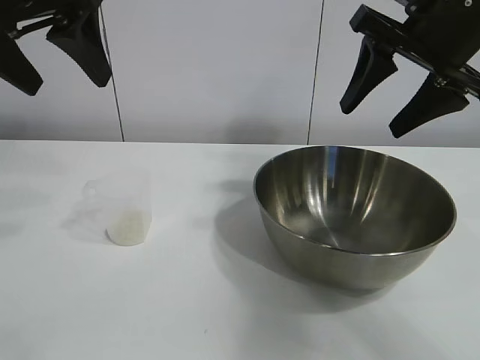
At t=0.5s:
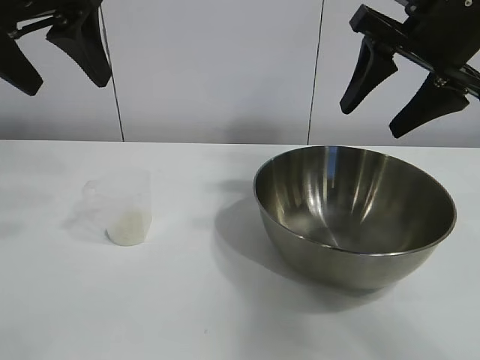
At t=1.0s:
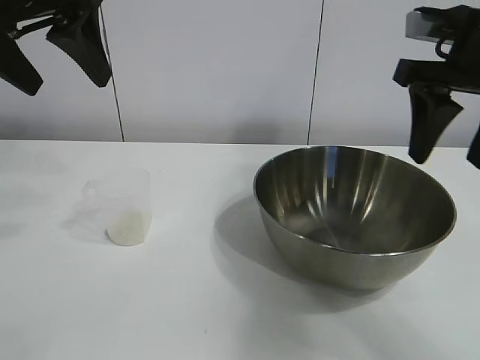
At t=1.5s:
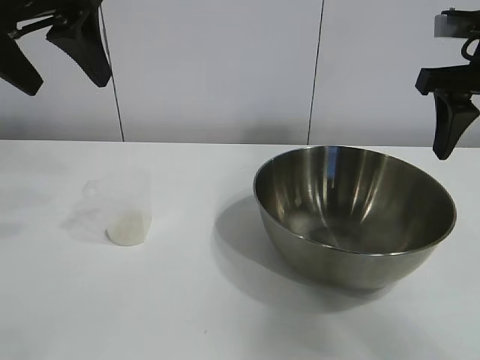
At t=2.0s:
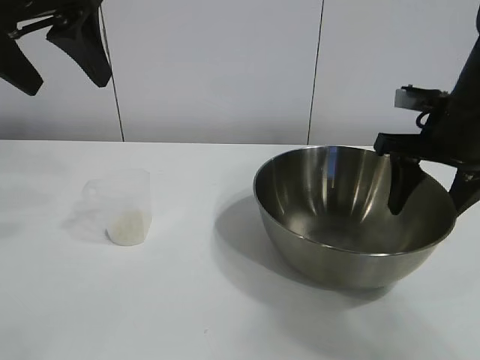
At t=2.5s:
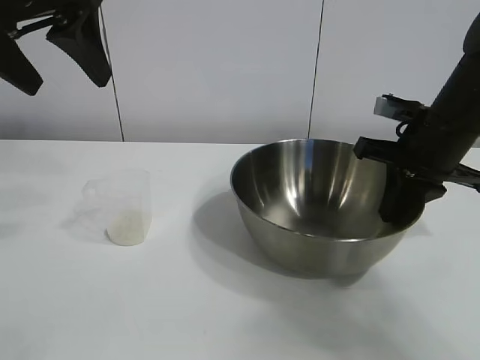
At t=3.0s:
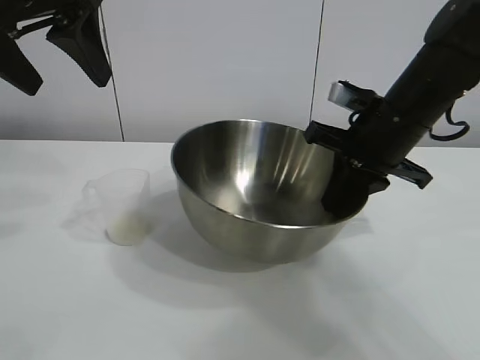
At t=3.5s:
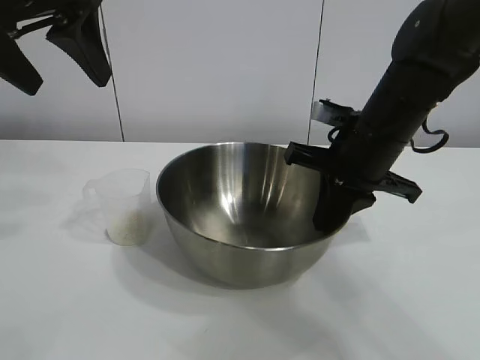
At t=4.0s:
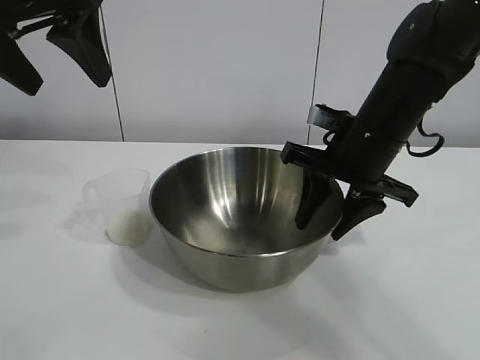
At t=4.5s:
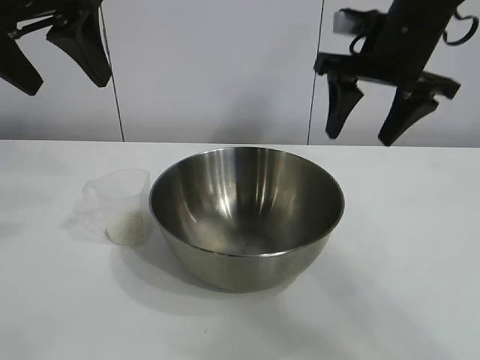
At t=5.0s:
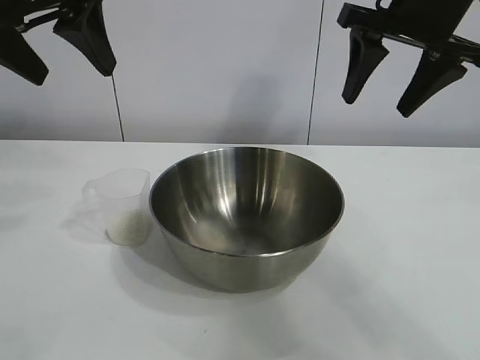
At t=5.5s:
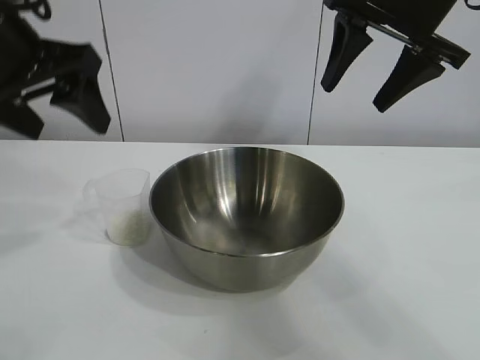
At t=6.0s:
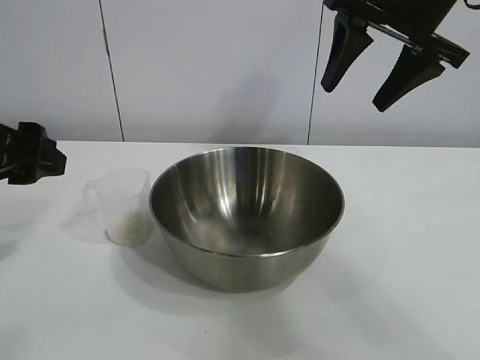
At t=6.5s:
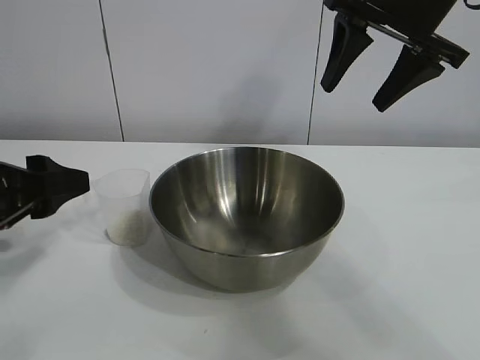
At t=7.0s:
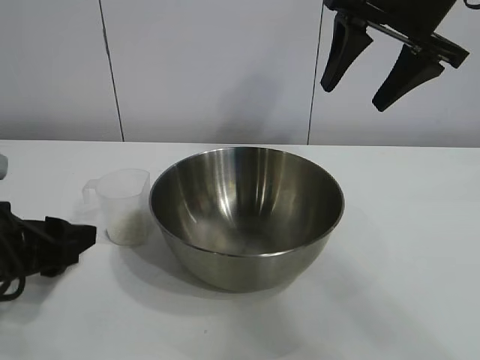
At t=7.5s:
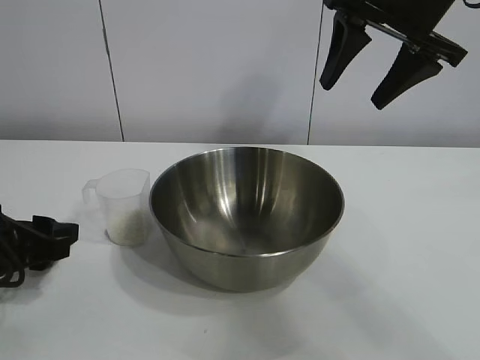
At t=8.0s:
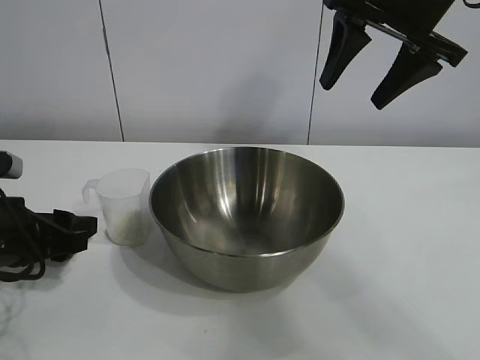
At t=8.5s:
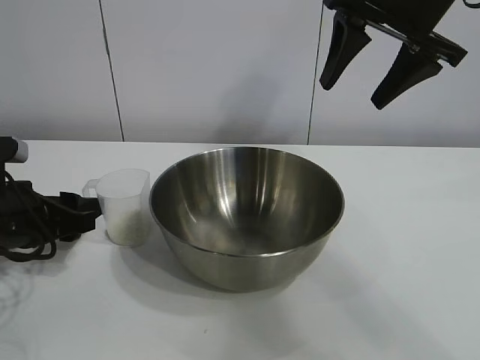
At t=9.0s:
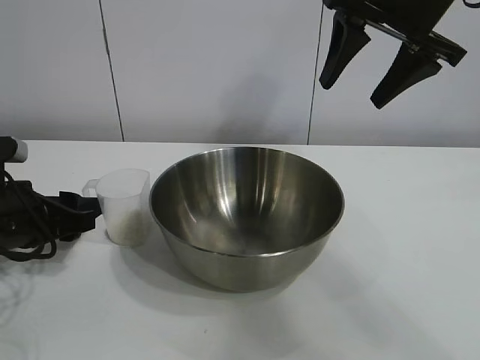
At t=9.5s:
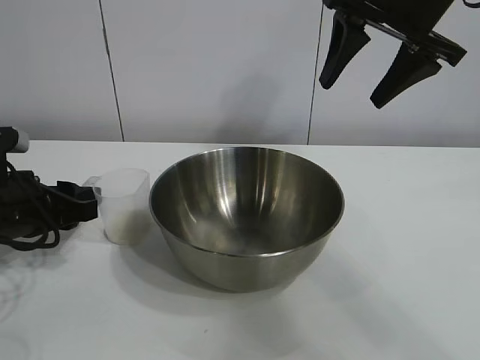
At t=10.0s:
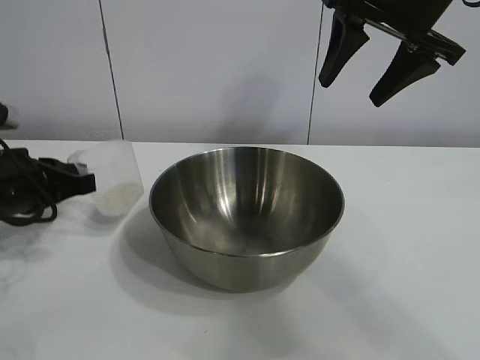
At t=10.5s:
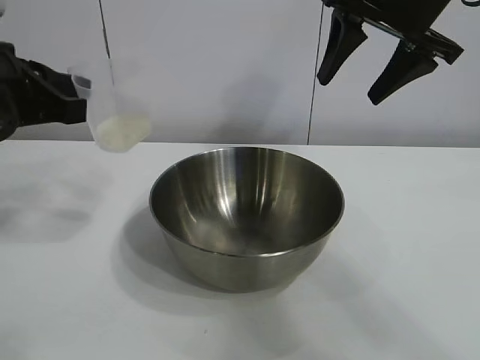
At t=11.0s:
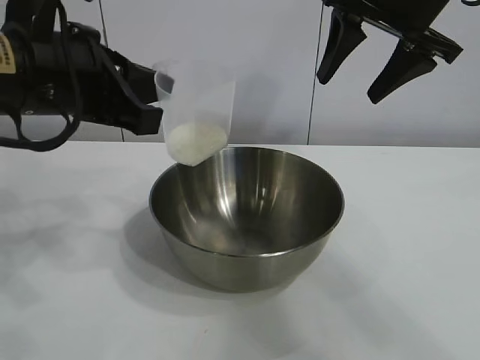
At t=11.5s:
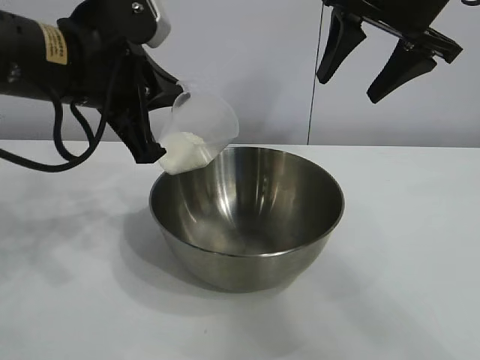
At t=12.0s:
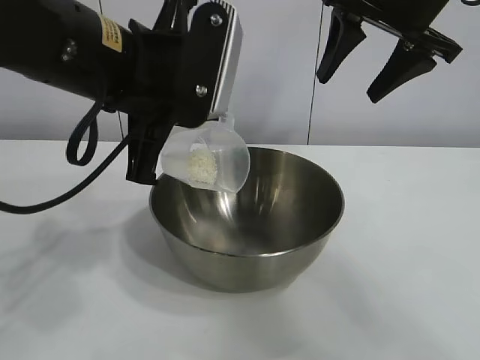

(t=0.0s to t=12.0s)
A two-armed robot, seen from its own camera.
Task of the whole recording: the right gripper grasp the rice container and place it in the center of the table, the left gripper grasp the rice scoop and pour the rice into the rice container.
Step, t=1.0s - t=4.0s: Move the bowl in the center of view with right gripper.
Step, t=4.5s - t=9.5s: Grasp the cup with rice in it with left gripper.

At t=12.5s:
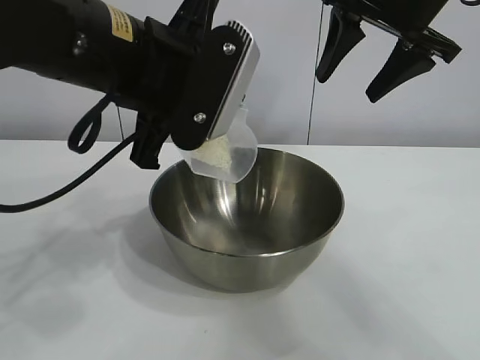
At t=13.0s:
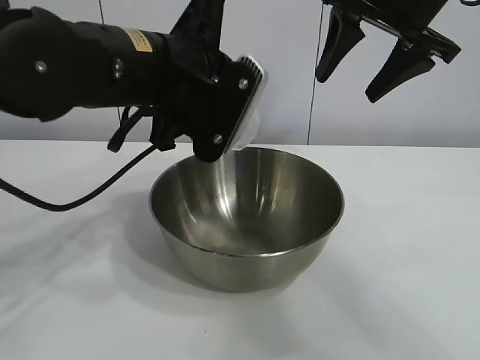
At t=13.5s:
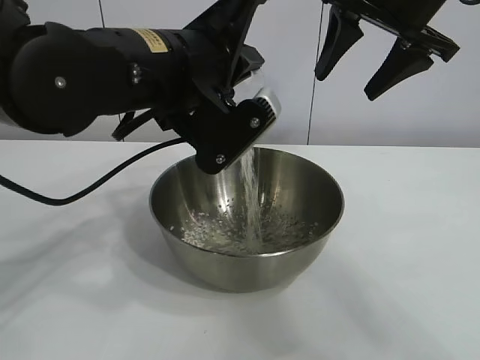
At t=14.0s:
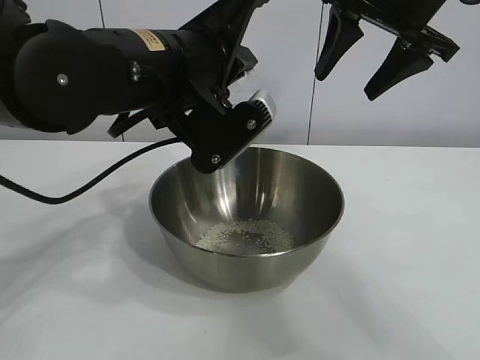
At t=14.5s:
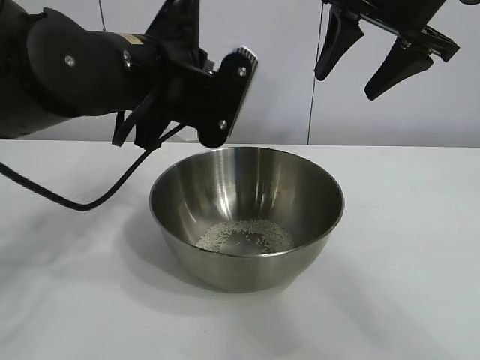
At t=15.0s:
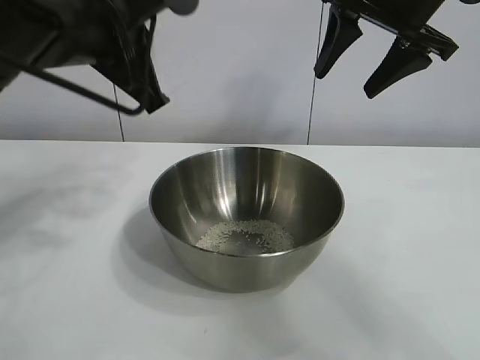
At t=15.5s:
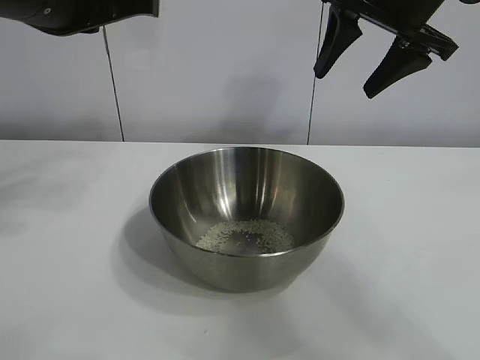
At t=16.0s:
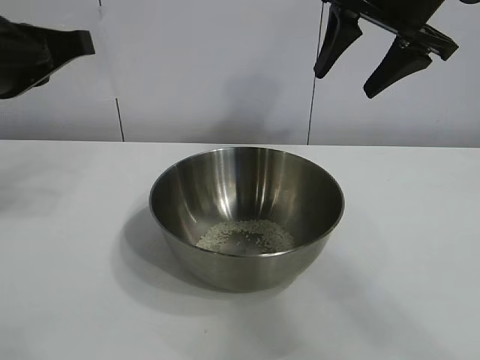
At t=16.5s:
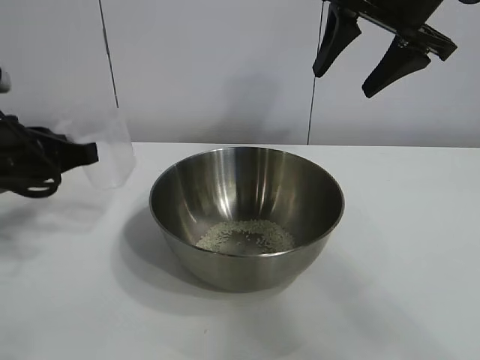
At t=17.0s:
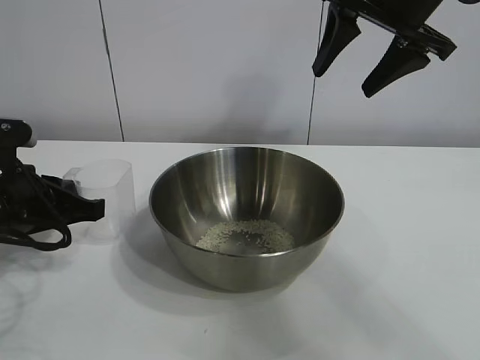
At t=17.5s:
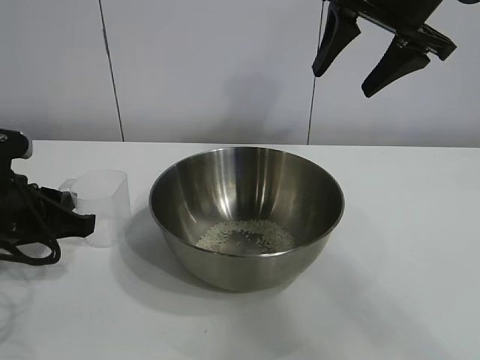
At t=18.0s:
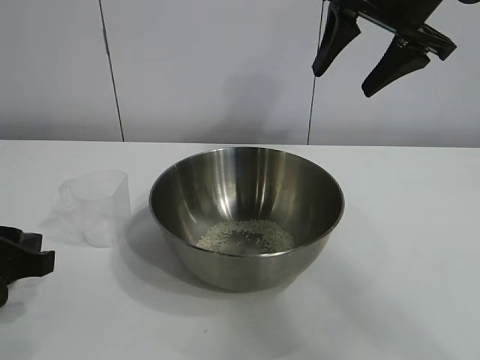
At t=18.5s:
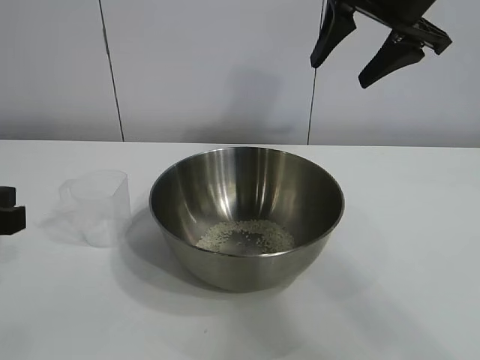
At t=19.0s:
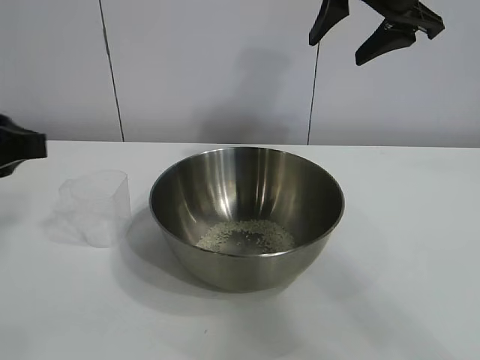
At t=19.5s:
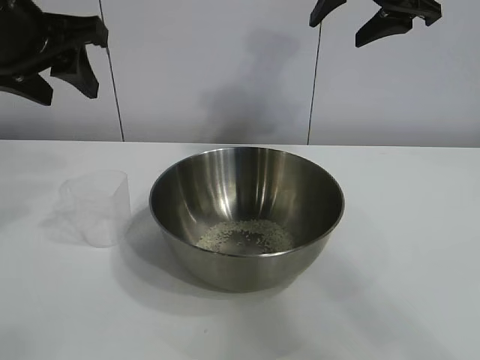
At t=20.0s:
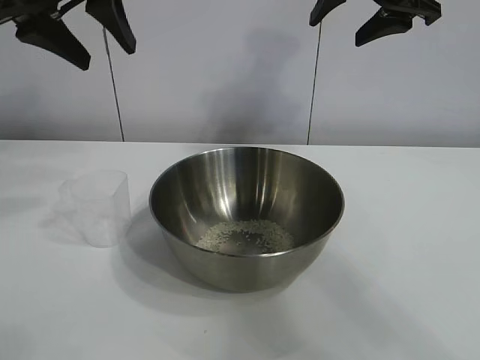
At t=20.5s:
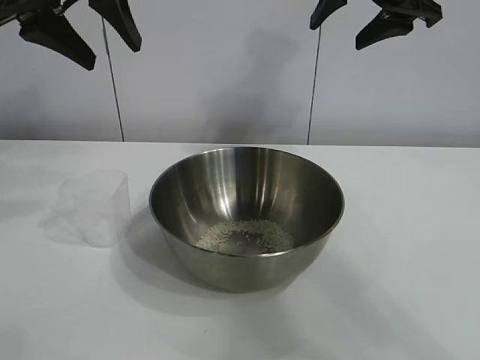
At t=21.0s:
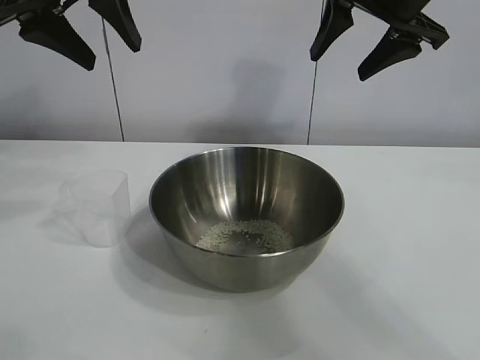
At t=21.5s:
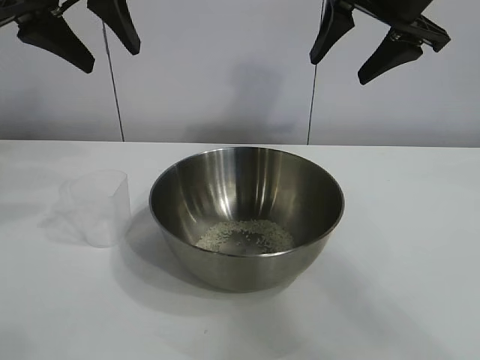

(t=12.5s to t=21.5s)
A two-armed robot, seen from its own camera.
Task of the whole recording: the right gripper grasp the rice container and place it in the center of the table, the left gripper grasp the rice scoop and pour the rice into the rice container.
Step, t=14.5s - t=17.0s: Place the cup on the table with the left gripper.
